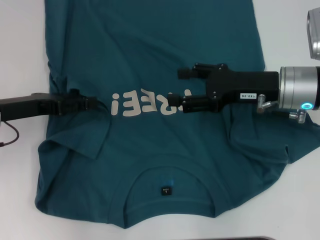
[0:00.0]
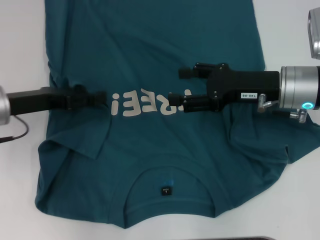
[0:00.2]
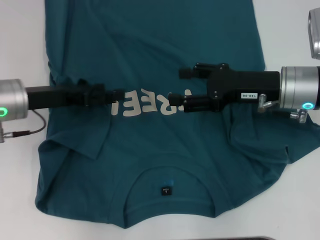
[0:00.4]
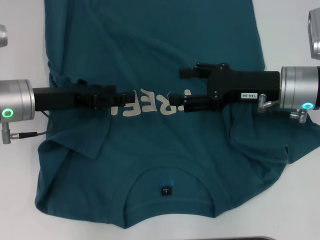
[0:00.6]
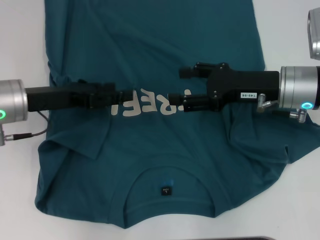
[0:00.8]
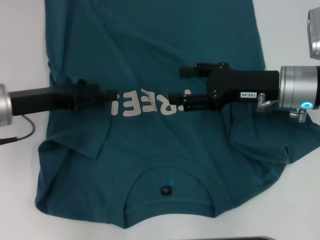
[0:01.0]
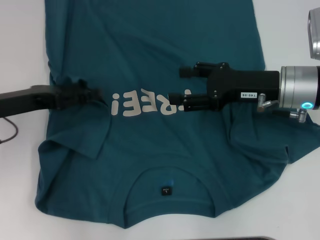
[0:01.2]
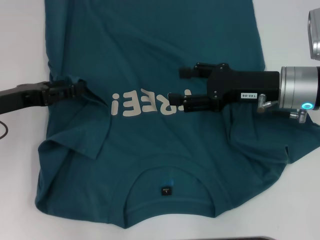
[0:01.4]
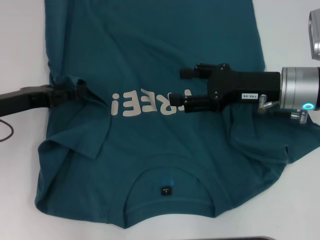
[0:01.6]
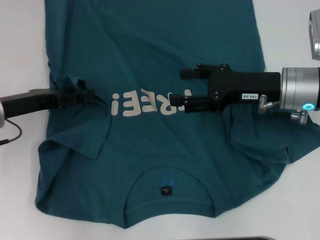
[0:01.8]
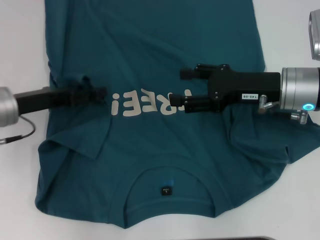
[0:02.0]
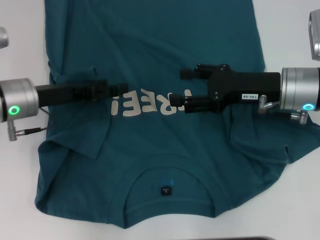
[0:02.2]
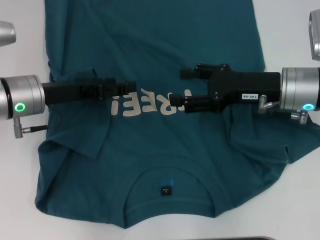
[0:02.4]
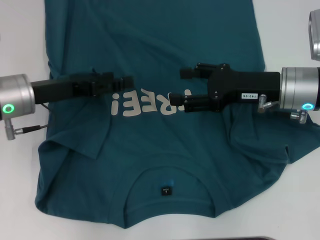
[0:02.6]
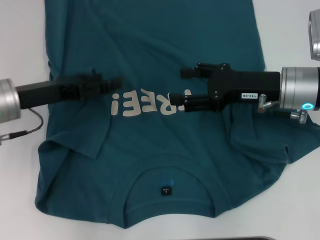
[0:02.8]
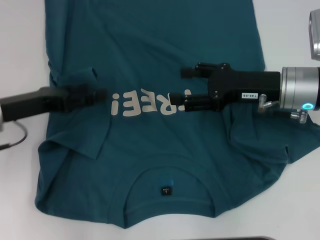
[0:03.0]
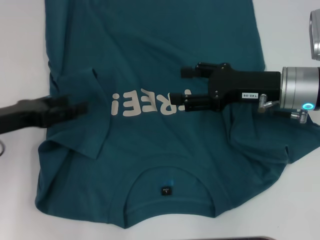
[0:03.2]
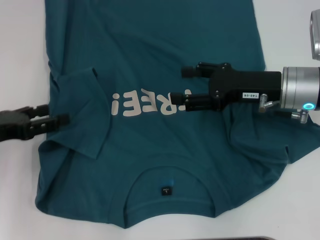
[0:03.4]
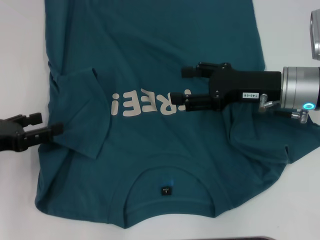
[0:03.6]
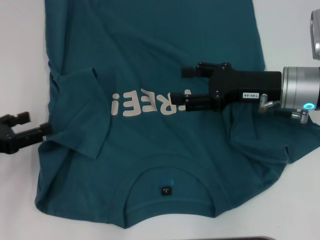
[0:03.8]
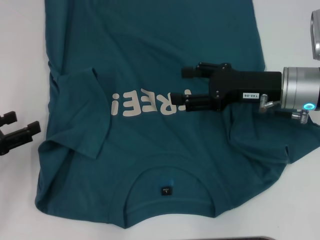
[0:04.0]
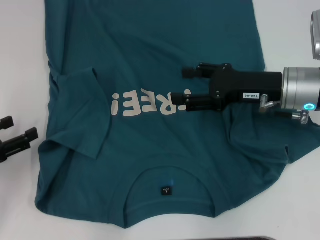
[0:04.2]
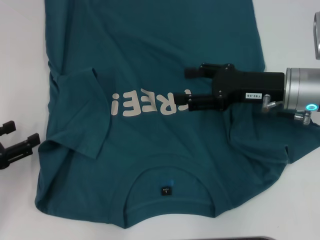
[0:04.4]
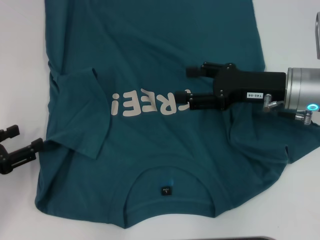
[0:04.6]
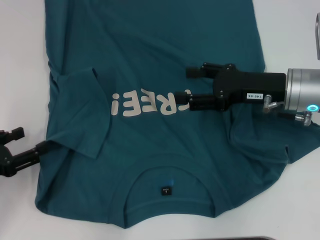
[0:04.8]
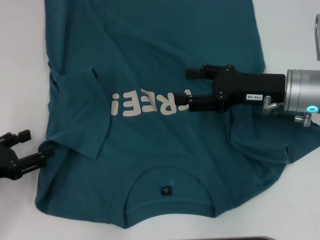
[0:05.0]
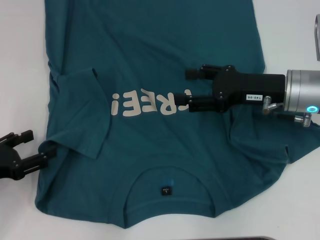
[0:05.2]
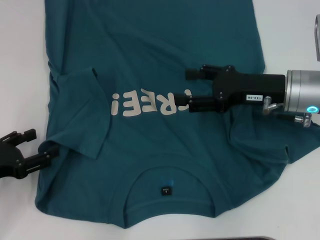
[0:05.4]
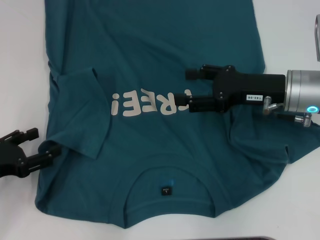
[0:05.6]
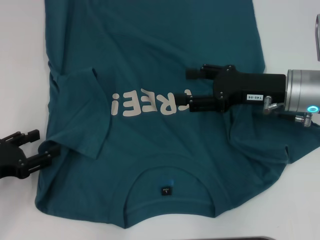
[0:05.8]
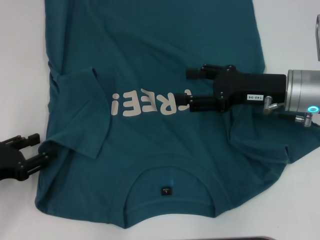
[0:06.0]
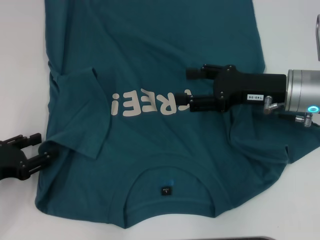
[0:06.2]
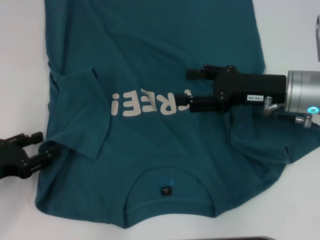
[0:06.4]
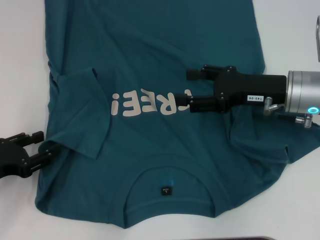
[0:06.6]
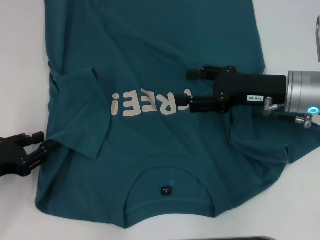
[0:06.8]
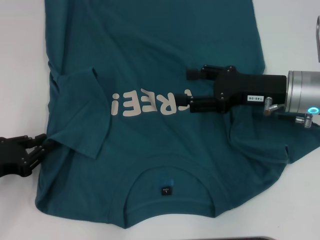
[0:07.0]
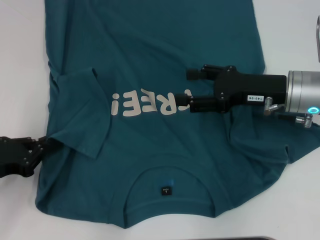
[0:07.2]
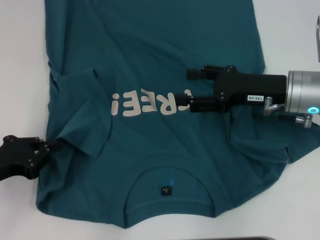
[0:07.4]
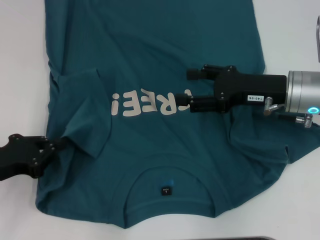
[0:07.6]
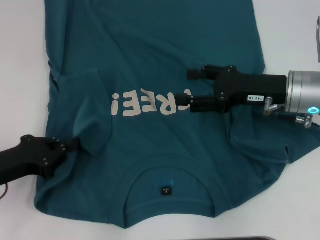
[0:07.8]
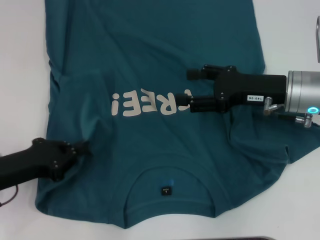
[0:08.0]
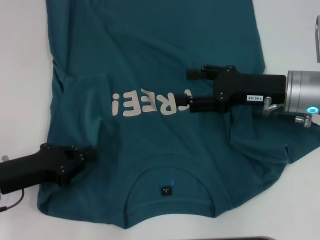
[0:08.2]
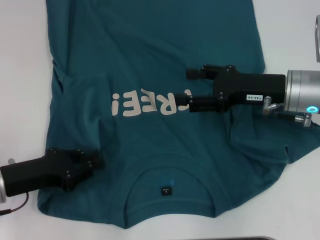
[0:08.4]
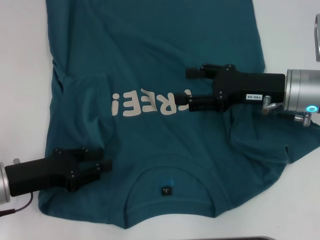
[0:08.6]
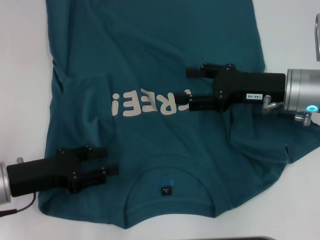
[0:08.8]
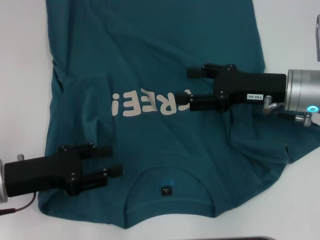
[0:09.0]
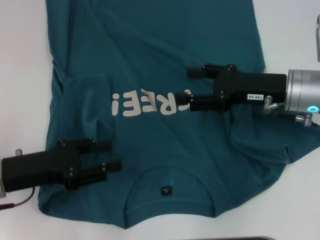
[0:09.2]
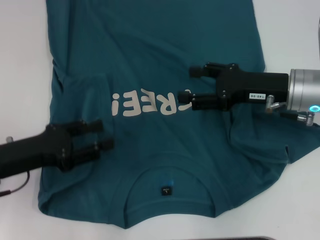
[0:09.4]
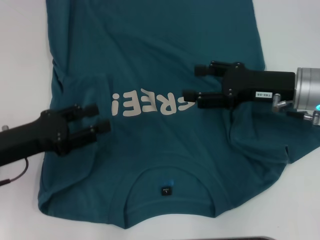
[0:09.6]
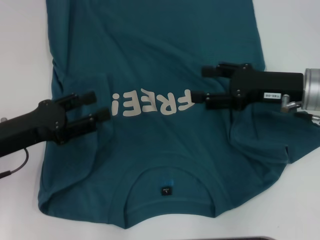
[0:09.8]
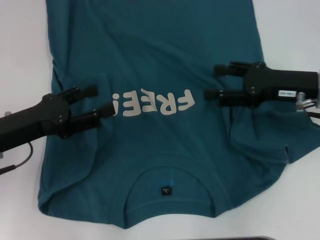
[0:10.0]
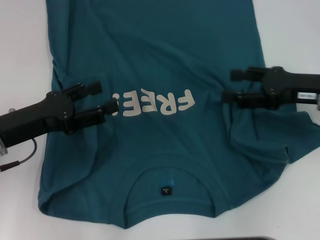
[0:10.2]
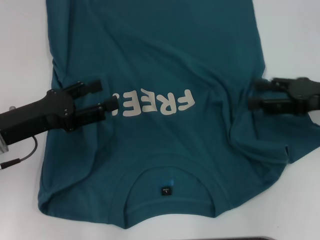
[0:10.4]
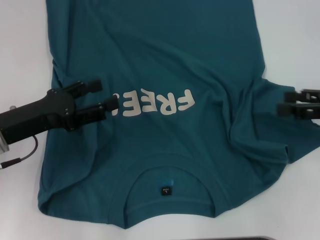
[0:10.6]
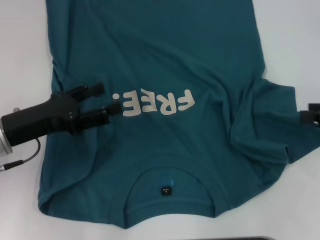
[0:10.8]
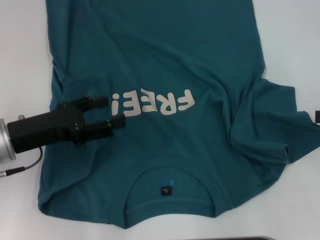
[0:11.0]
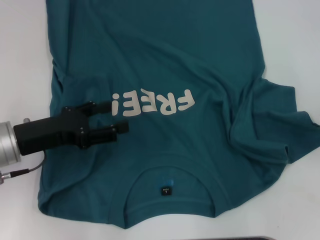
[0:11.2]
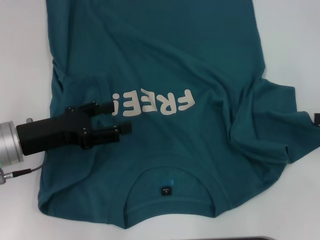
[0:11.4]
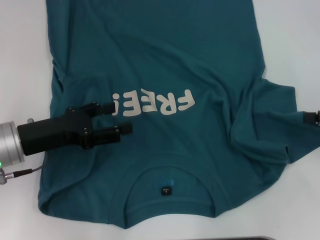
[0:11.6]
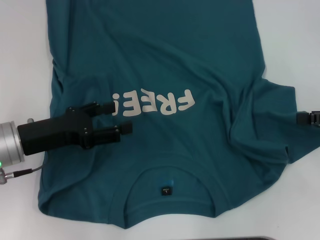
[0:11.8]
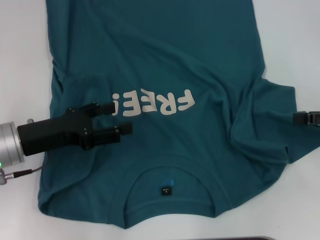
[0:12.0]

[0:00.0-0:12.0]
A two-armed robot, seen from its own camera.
Step, 0:00.0 to 0:03.6: Fold the bottom left sleeve with your left hand.
0:00.0 to 0:01.6: The grippers stay close to where they were, moving slightly.
0:03.0 to 0:04.4: The left gripper goes about 10 cm backward and to the left.
0:04.4 to 0:06.0: The grippers stay close to where they were, moving slightly.
0:06.0 to 0:07.6: The left gripper closes its fingers.
0:07.6 to 0:09.0: The left gripper opens.
0:09.0 to 0:10.4: The right gripper moves to the right, approximately 10 cm.
0:10.4 to 0:12.0: The right gripper heads to the right, covering roughly 5 cm.

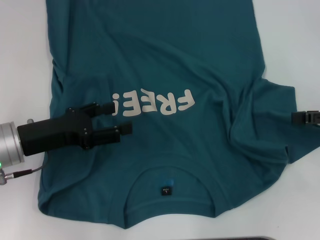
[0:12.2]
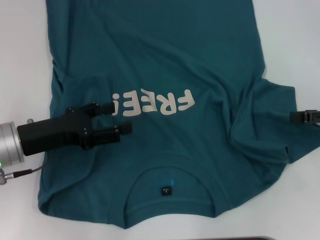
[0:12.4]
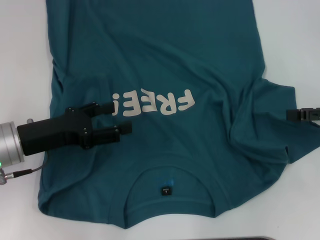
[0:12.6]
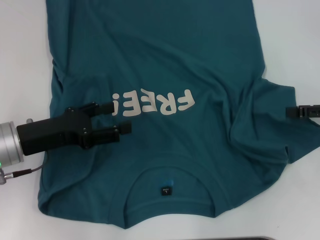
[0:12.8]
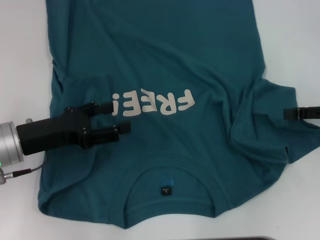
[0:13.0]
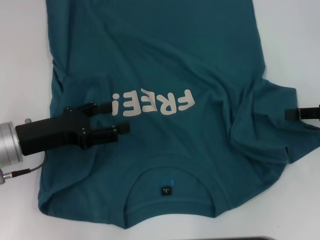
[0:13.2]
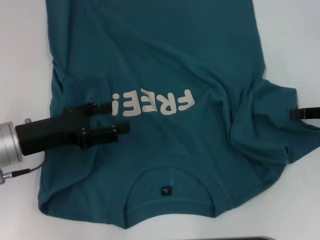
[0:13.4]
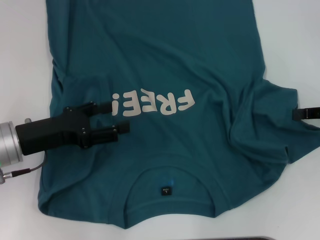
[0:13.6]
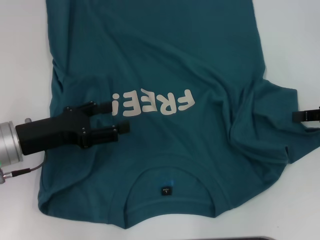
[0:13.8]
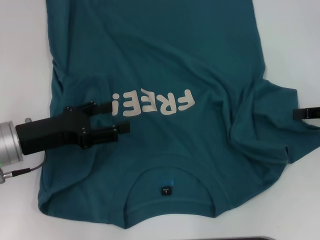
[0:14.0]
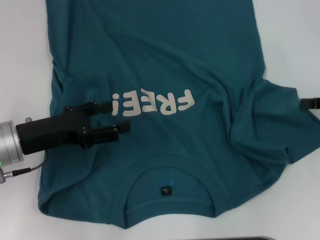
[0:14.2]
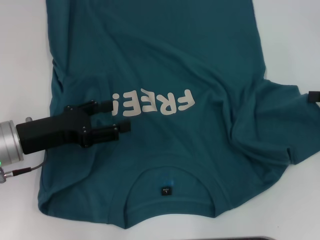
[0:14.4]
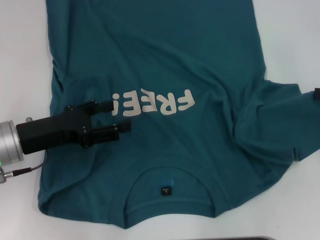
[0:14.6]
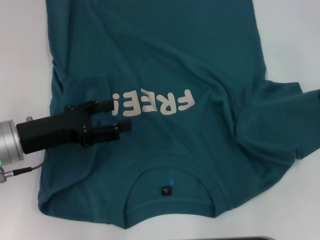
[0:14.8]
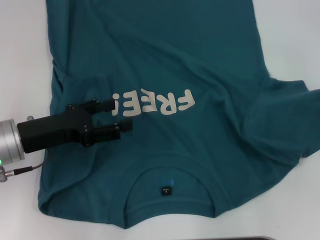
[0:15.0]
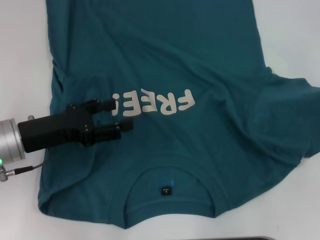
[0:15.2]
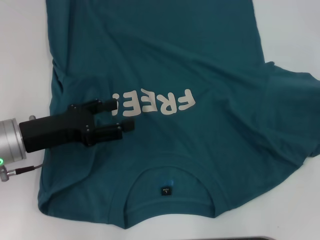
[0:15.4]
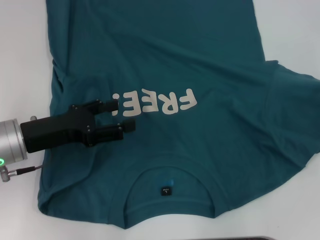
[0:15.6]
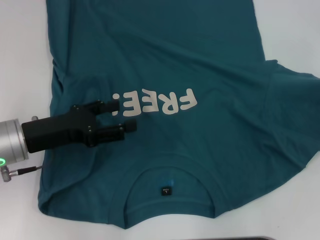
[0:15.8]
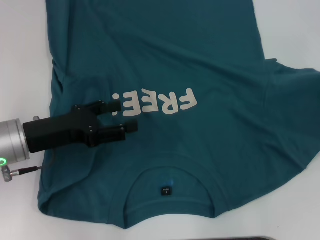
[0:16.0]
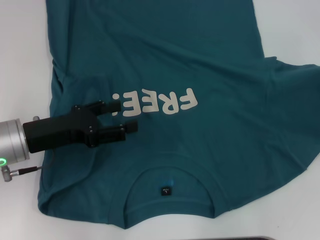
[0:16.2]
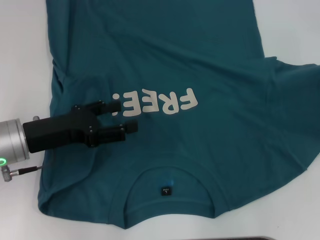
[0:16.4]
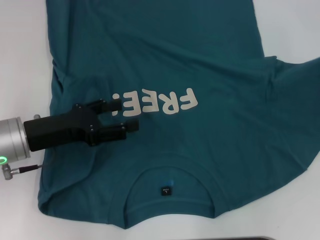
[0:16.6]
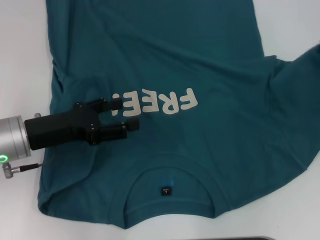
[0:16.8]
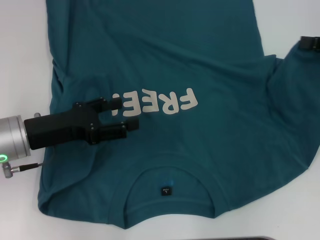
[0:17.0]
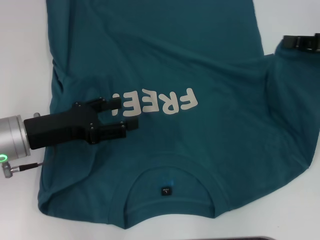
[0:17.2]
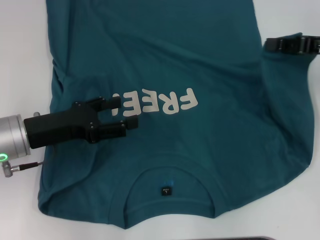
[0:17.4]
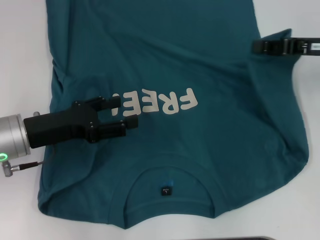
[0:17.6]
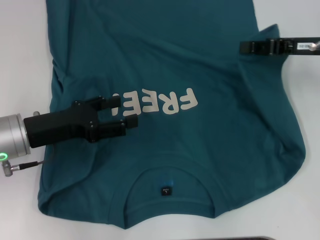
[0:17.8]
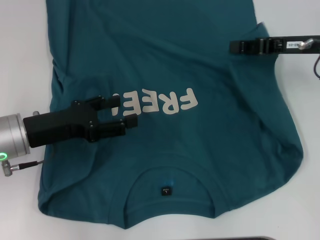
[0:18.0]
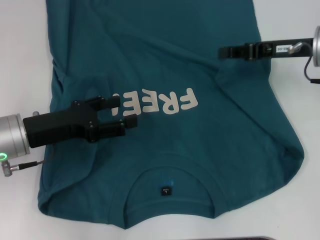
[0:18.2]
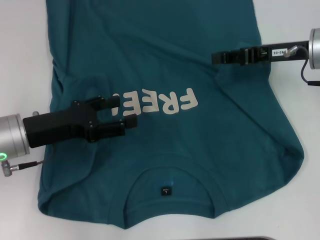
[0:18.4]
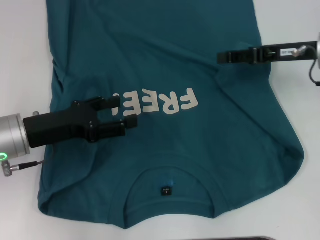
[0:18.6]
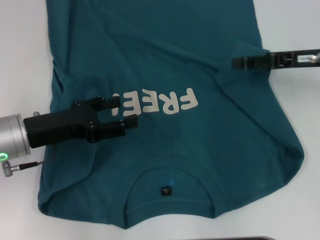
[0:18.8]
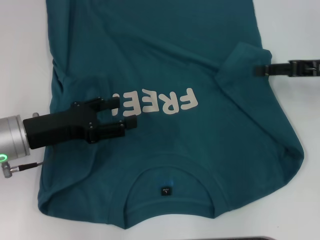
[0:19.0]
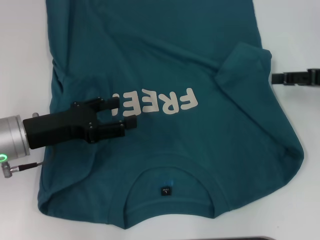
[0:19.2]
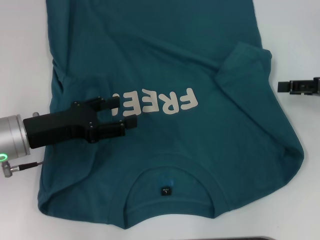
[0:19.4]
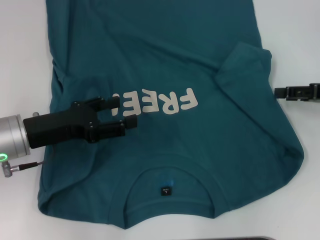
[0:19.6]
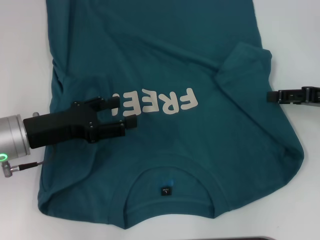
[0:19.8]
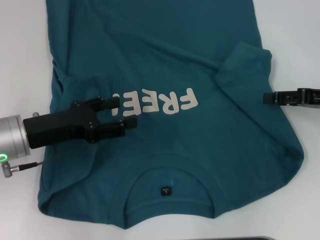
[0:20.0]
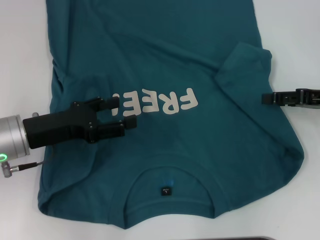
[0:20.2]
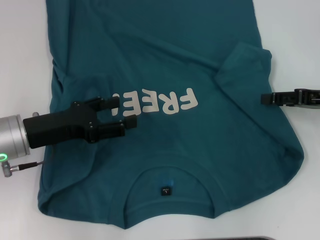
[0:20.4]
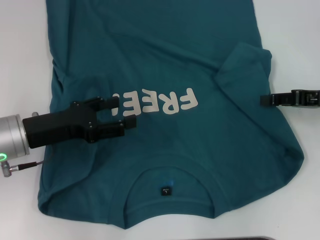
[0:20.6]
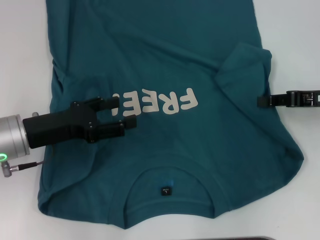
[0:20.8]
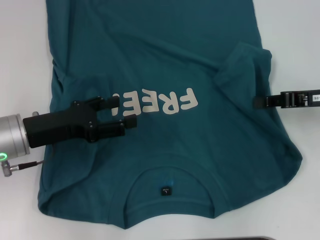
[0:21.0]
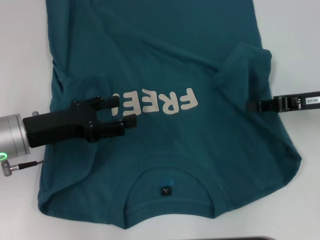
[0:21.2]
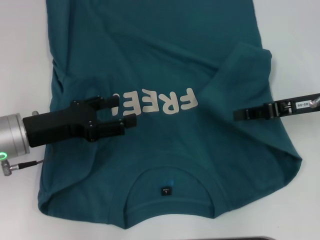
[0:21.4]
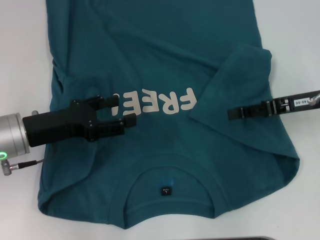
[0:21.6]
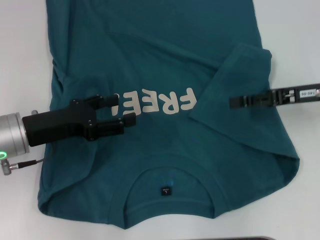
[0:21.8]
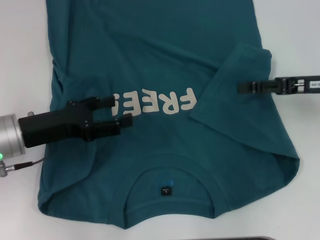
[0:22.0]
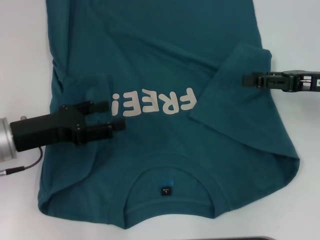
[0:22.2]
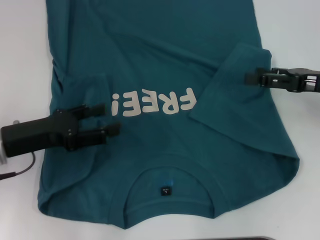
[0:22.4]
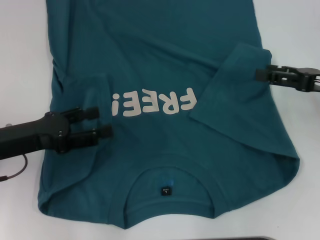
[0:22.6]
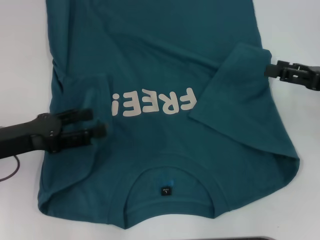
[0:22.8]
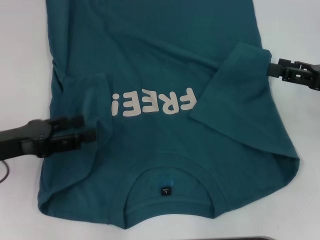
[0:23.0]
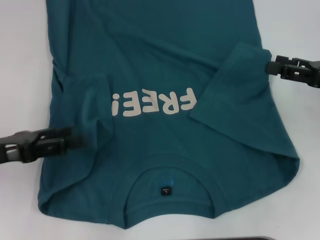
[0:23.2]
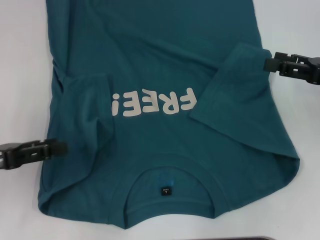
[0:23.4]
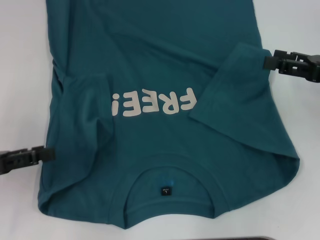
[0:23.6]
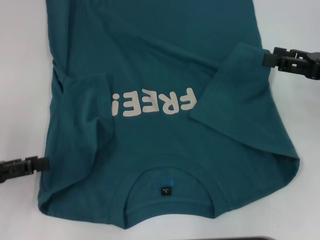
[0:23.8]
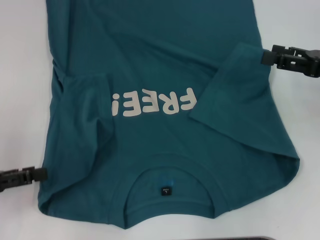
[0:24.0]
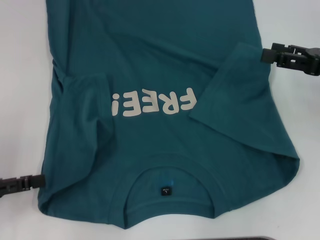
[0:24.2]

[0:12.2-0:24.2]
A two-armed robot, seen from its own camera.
Step, 0:12.2 to 0:21.6: Fold the bottom right sleeve to the right.
0:12.2 to 0:13.8: The right gripper closes up.
0:13.8 to 0:15.2: The right gripper moves about 5 cm.
0:15.2 to 0:16.6: The grippers make only small movements.
0:16.6 to 0:18.2: The right gripper shifts approximately 15 cm to the left and forward.
0:18.2 to 0:19.8: The right gripper is displaced to the right and backward by some 10 cm, and opens its fingers.
0:19.8 to 0:21.2: The right gripper closes up.
0:21.2 to 0:22.6: The right gripper opens up.
0:22.6 to 0:24.2: The left gripper moves to the left and backward, approximately 10 cm.
